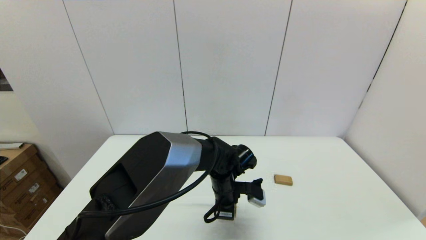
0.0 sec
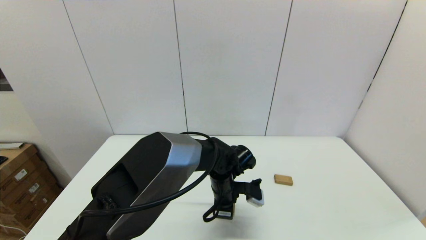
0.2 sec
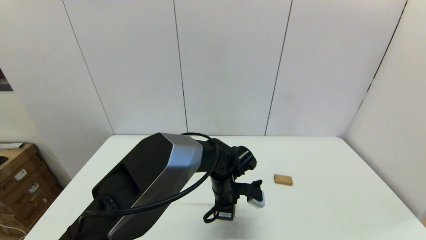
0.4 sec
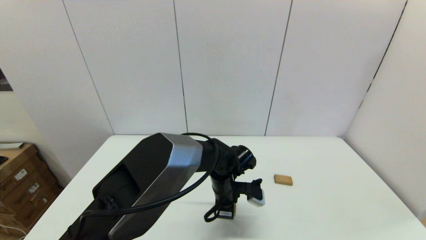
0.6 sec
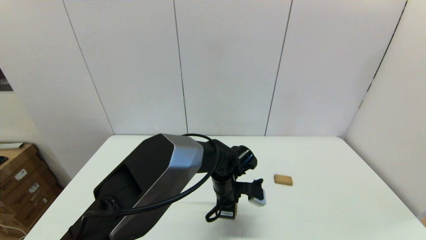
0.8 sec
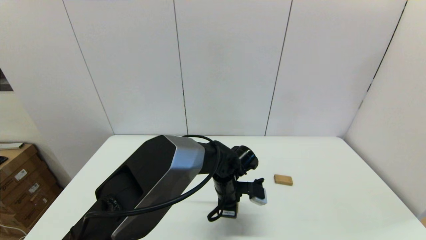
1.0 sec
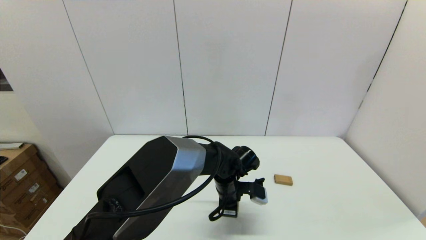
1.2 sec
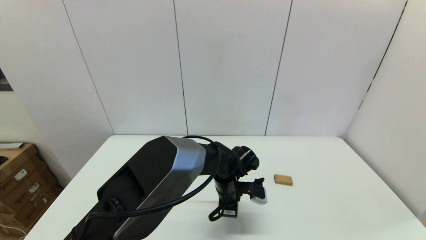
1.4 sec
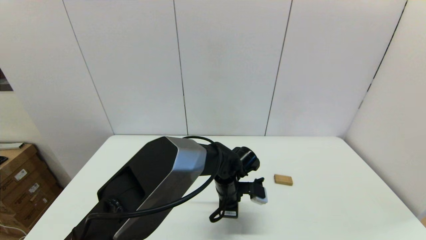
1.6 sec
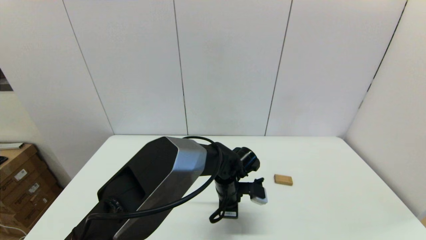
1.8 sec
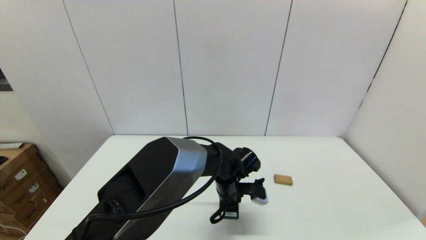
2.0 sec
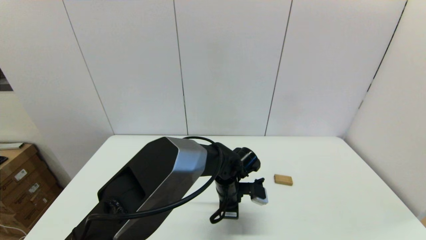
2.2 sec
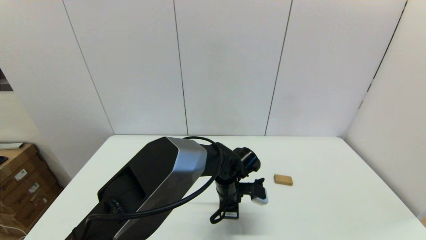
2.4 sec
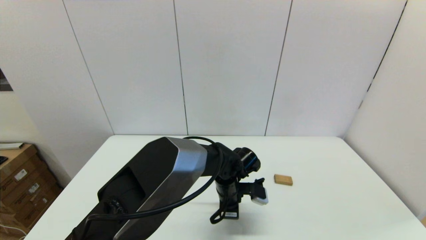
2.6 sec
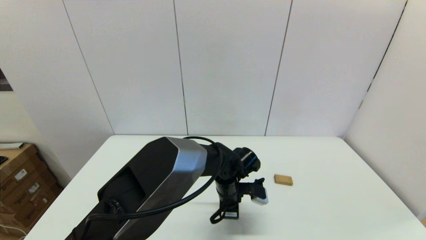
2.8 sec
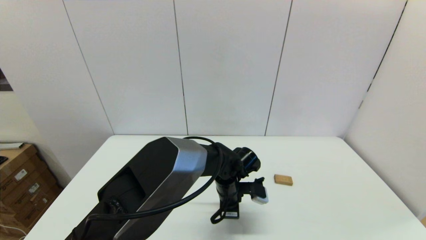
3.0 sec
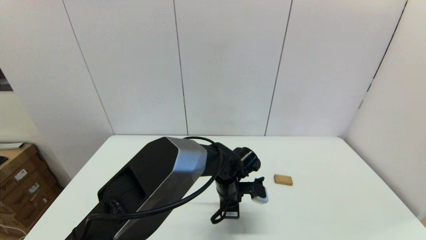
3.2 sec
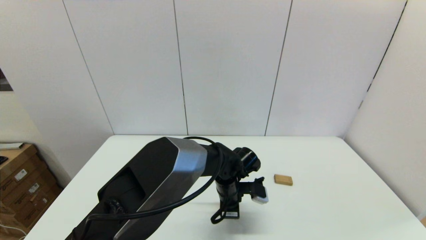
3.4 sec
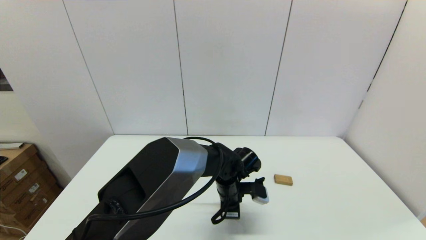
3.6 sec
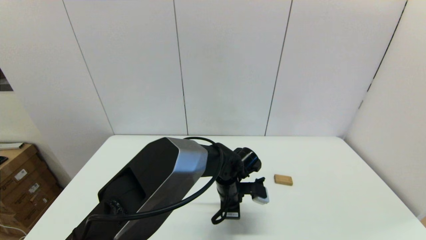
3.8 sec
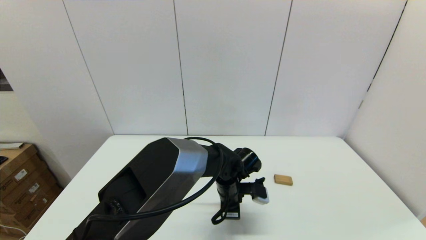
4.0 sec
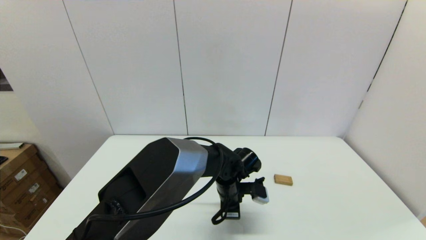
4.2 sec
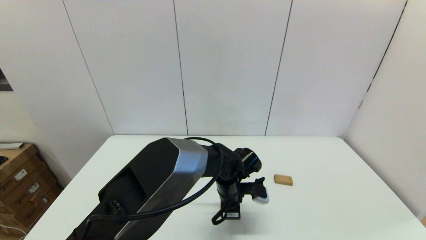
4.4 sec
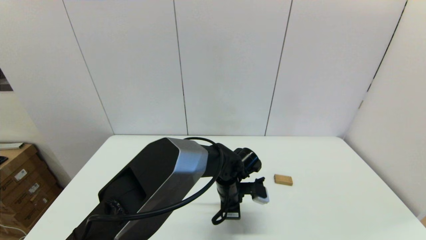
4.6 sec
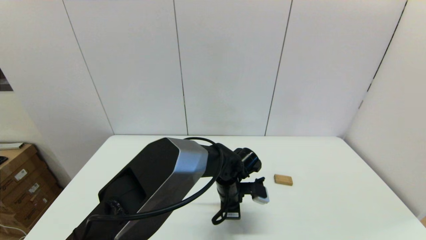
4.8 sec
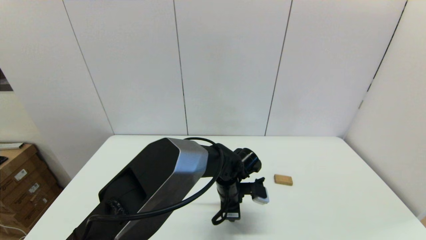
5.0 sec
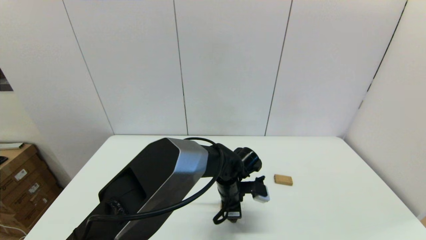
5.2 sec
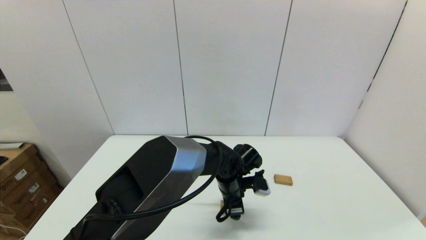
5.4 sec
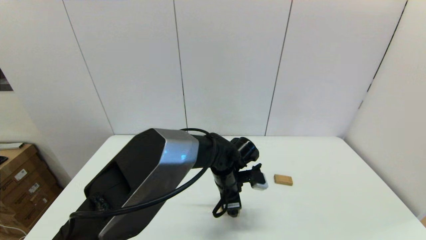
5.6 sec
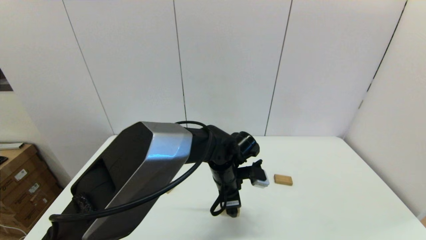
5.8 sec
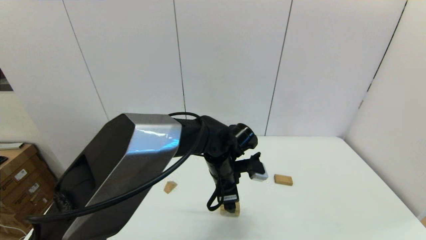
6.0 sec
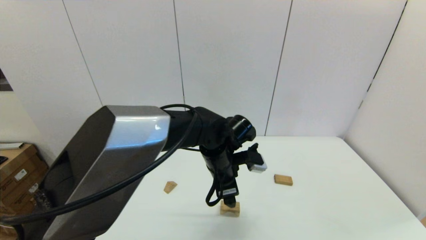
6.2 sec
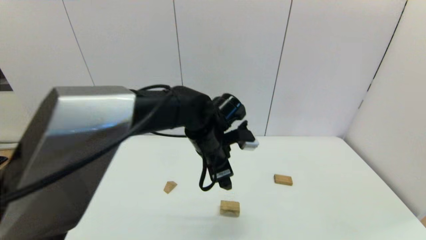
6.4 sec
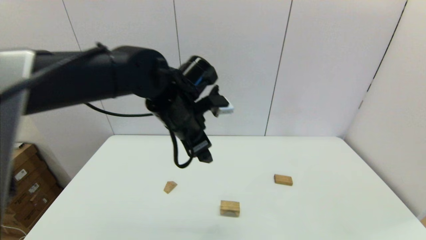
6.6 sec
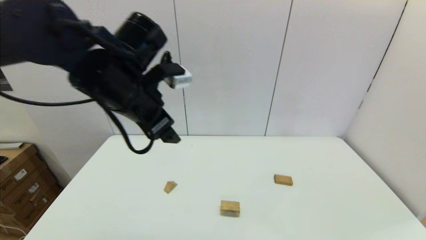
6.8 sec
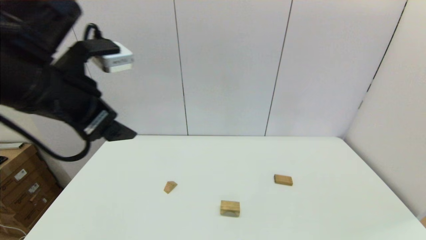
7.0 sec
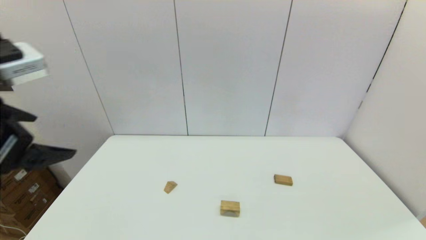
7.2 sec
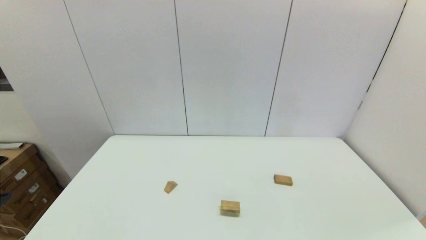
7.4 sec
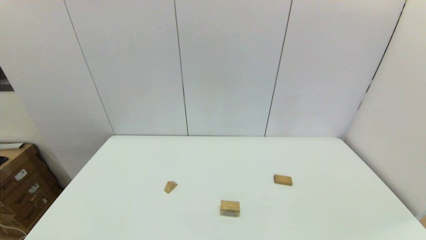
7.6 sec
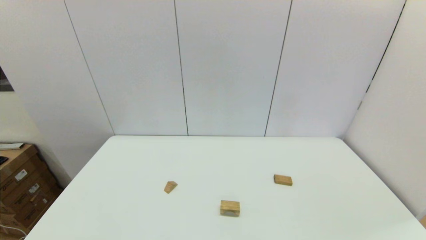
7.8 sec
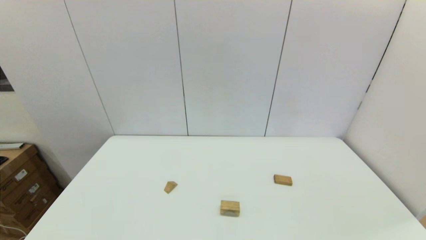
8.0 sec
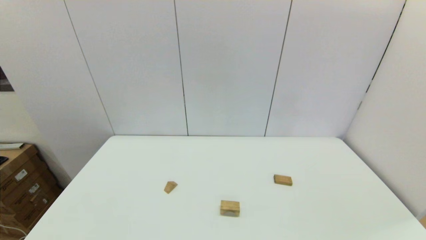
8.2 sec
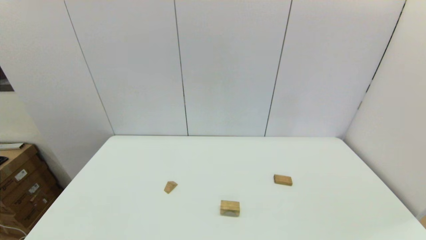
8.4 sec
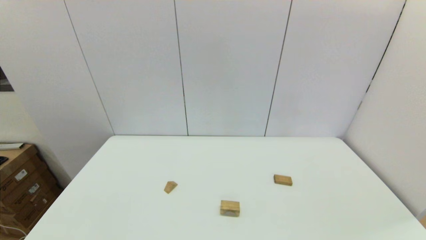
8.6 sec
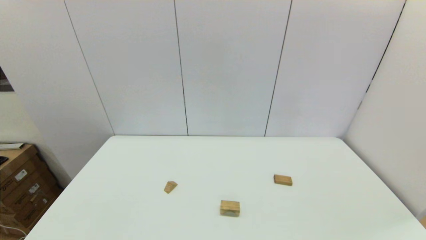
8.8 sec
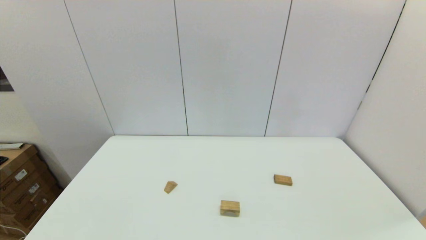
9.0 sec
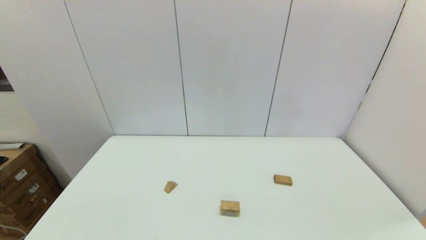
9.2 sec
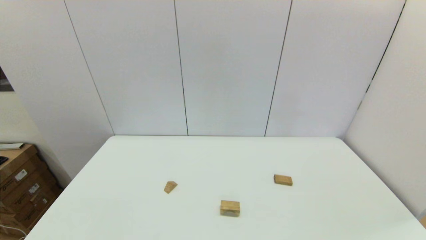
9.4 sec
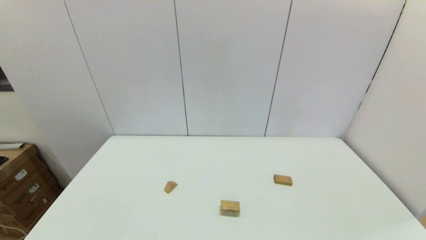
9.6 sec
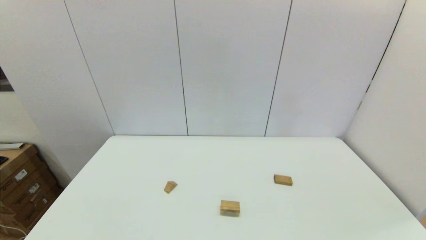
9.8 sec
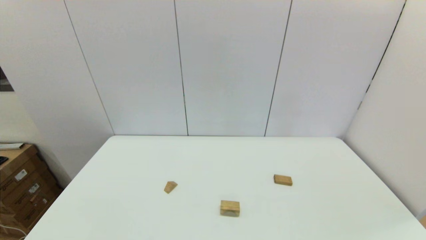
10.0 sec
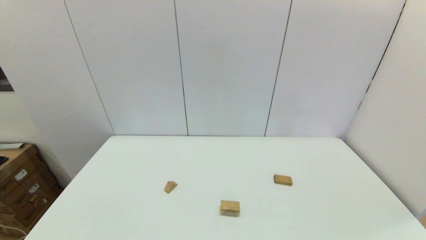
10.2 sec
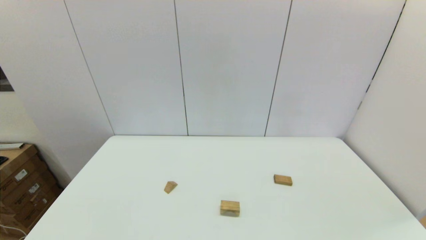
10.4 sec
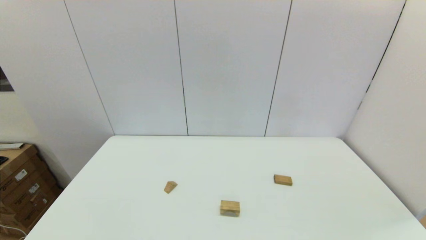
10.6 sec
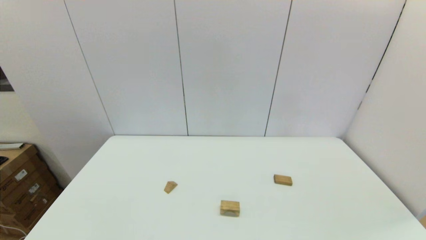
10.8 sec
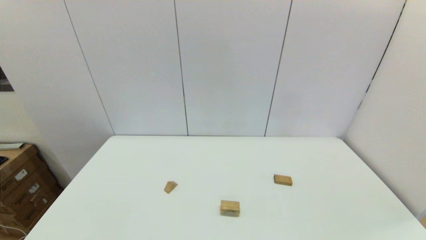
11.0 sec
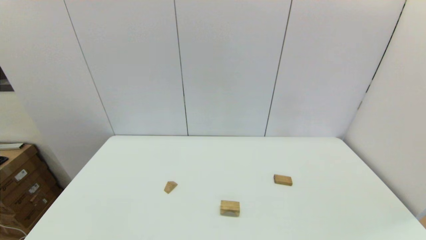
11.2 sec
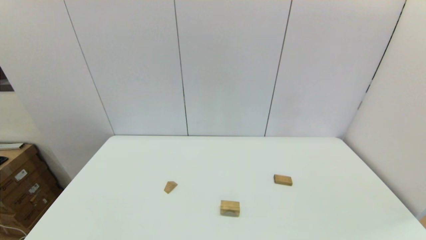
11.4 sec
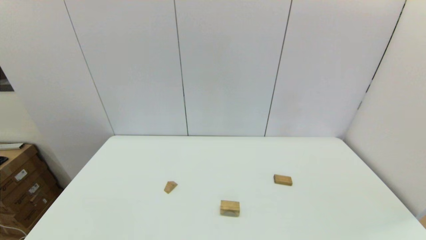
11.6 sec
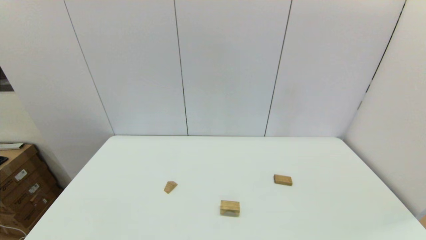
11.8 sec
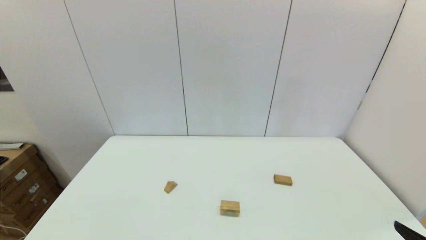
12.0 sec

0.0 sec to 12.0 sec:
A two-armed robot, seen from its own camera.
Task of the whole recording: place the arched building blocks in the center of the table, set up the rectangular building blocks, and then set up the triangular building blocks.
Step, 0.0 sec to 4.8 sec: Place the arch-shaped block in the center of view with the left gripper.
0.0 sec to 1.6 sec: The grippers stay close to where they were, moving slightly.
1.6 sec to 4.4 sec: Both grippers stay put.
4.4 sec to 6.0 sec: The left gripper moves upward, some 10 cm, and opens its fingers.
6.0 sec to 7.6 sec: The left gripper moves to the left, backward and upward, roughly 50 cm.

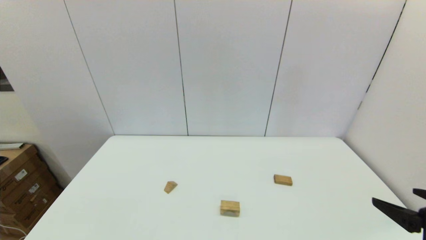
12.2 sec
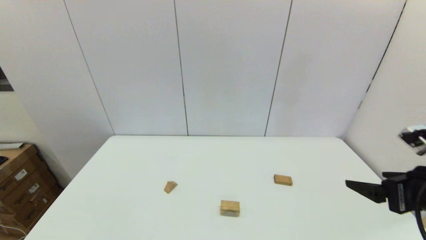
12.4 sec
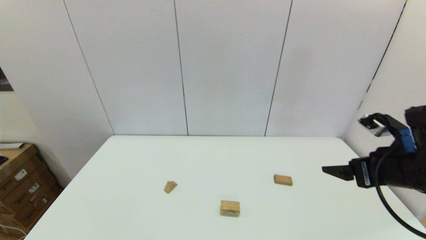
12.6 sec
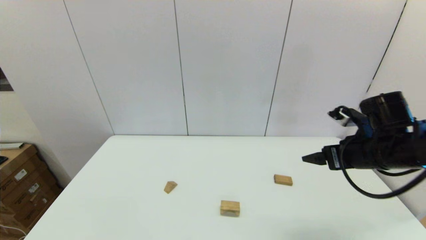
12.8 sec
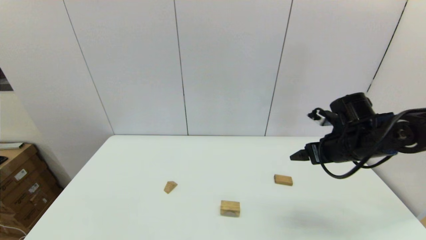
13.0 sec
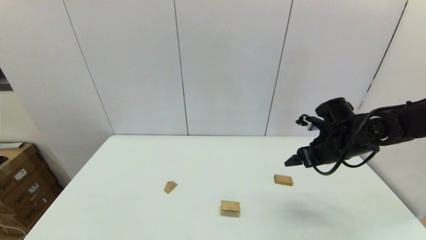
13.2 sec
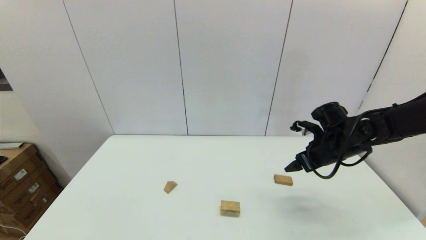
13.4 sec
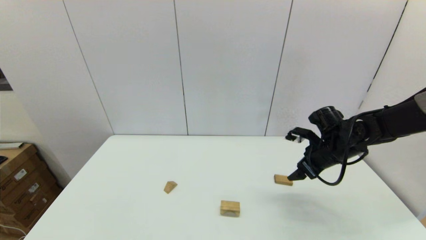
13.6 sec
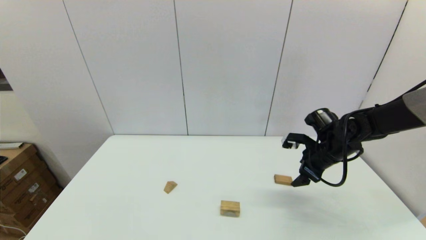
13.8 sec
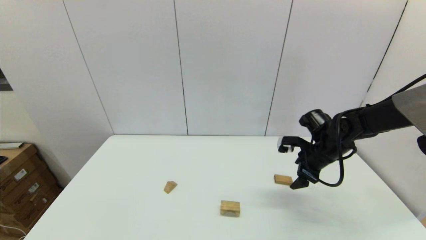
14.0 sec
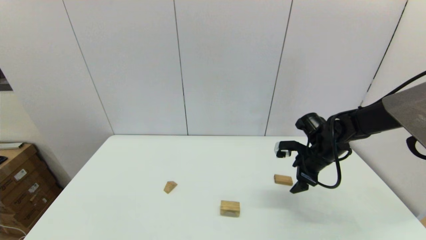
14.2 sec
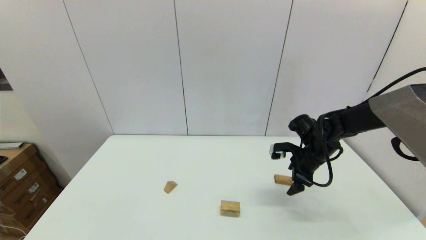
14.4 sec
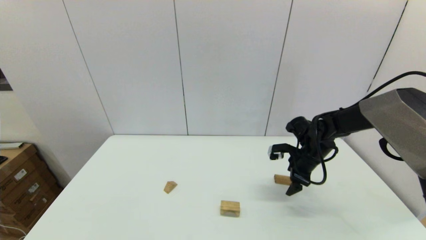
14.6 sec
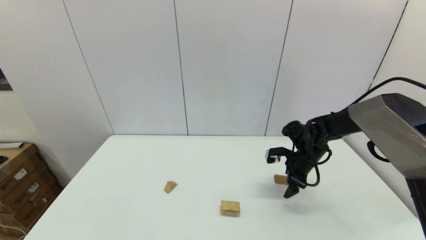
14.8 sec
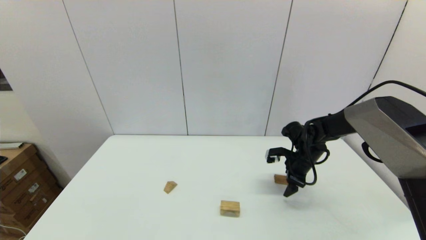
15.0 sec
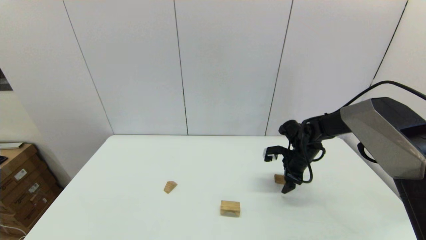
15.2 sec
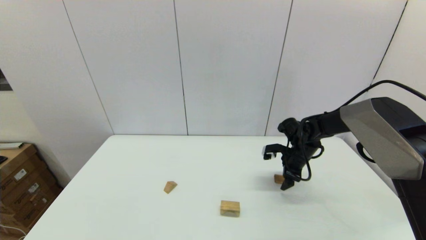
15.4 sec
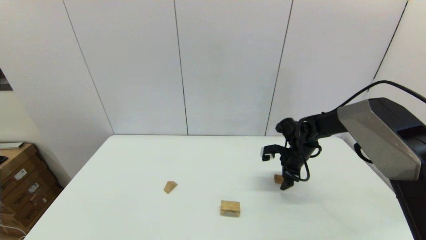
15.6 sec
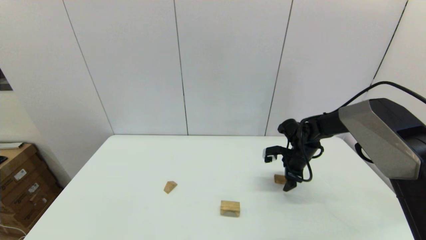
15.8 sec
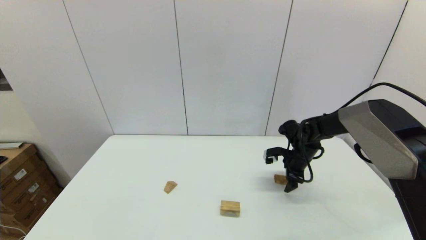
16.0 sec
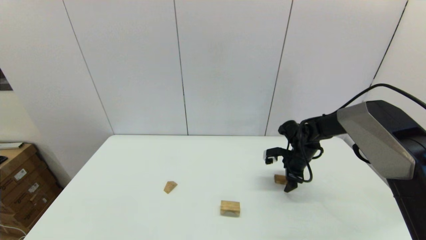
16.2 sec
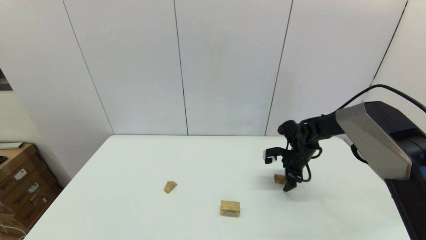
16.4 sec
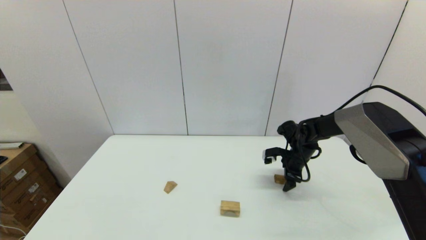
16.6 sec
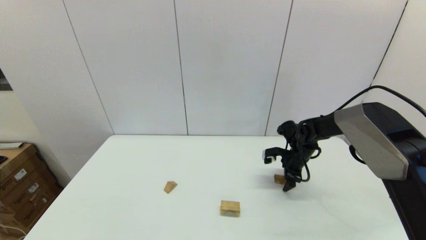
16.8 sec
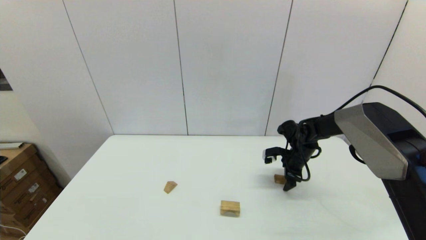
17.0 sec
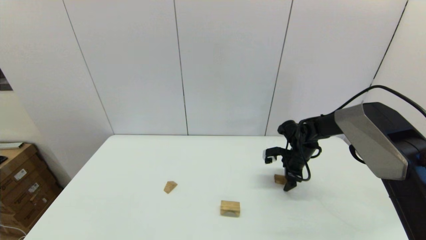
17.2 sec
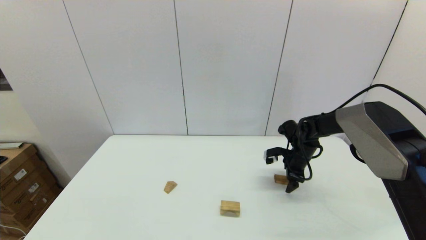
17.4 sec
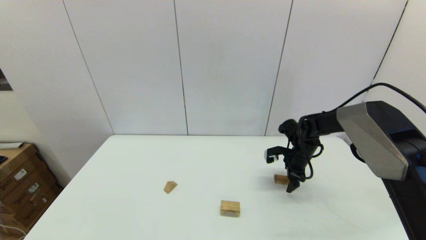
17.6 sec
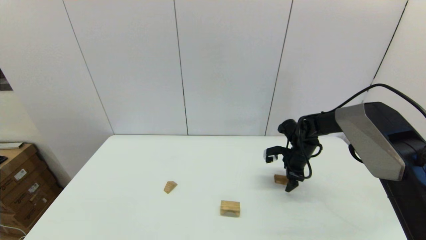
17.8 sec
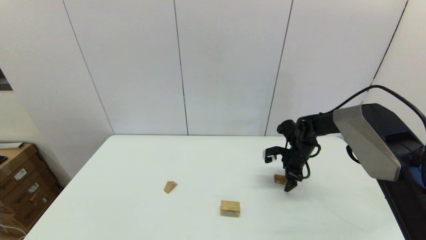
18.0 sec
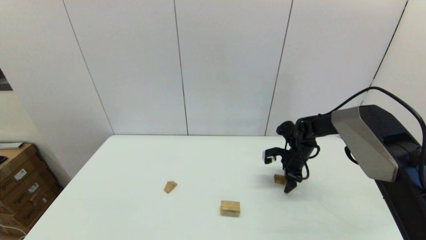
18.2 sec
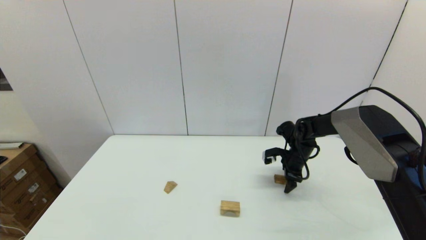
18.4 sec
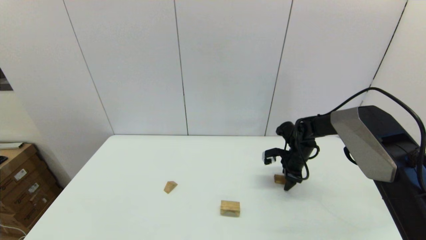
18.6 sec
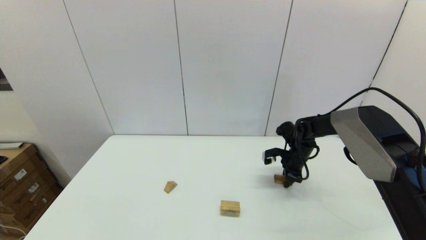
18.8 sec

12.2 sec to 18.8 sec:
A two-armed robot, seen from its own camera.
Task of the whole recording: place the arched building blocks in the center of the table, set up the rectangular building blocks, and then set up the triangular building blocks.
12.2 sec to 13.8 sec: The right gripper is displaced forward by roughly 25 cm.
13.8 sec to 15.4 sec: The right gripper travels forward and downward by about 10 cm.
15.4 sec to 17.2 sec: The grippers make only small movements.
17.2 sec to 18.8 sec: The right gripper closes its fingers.
